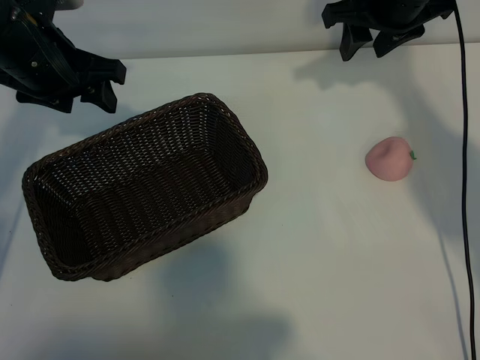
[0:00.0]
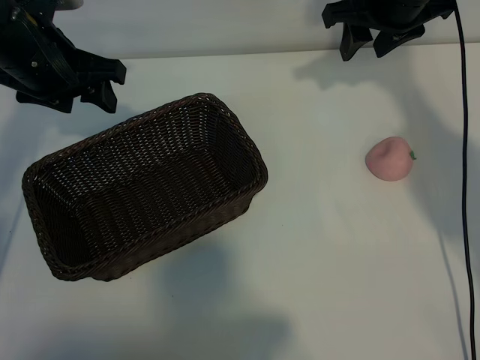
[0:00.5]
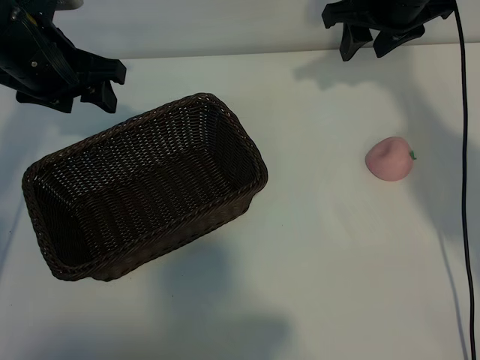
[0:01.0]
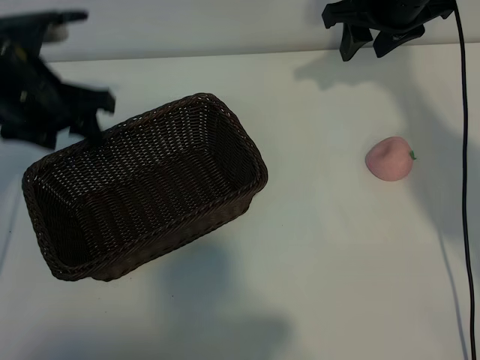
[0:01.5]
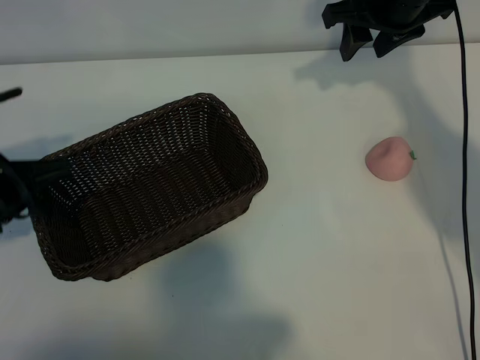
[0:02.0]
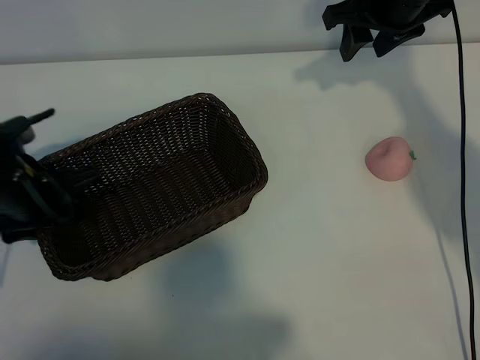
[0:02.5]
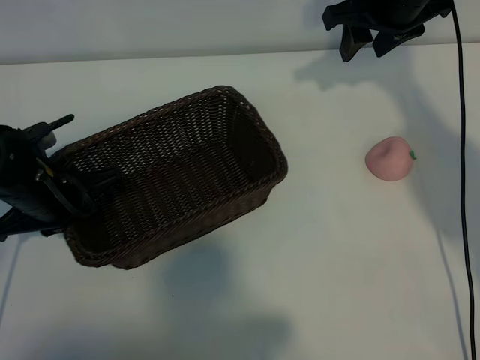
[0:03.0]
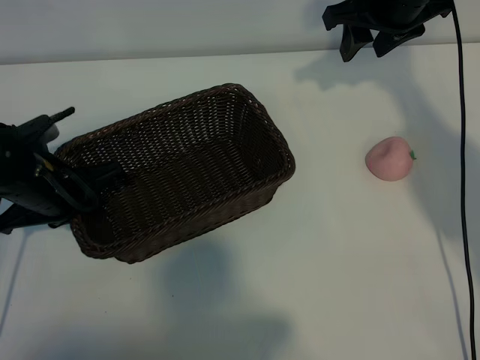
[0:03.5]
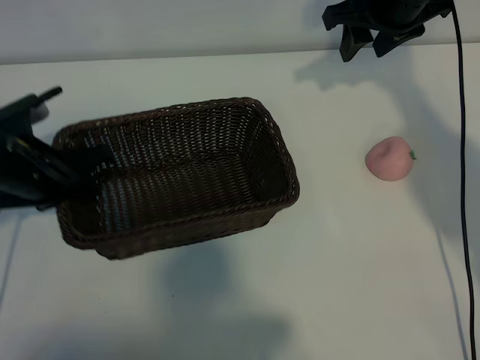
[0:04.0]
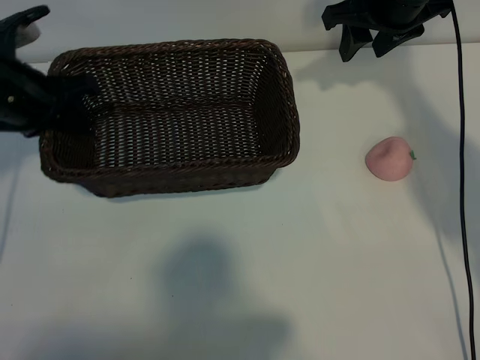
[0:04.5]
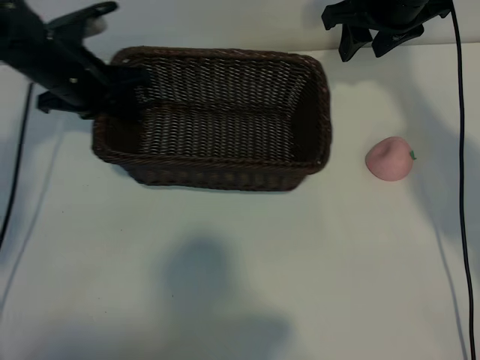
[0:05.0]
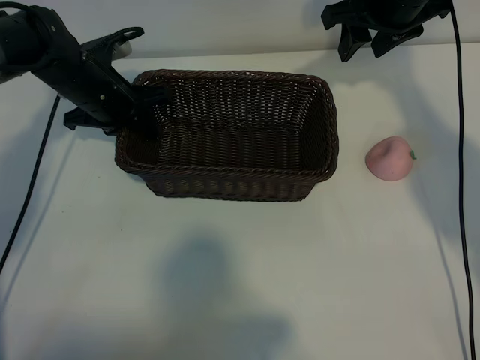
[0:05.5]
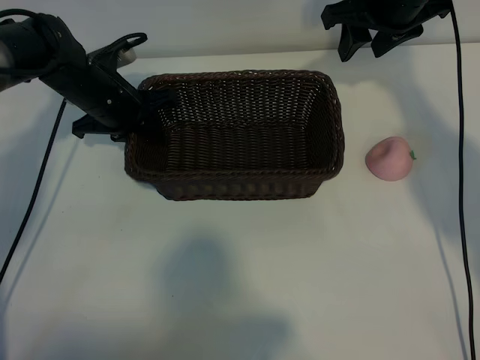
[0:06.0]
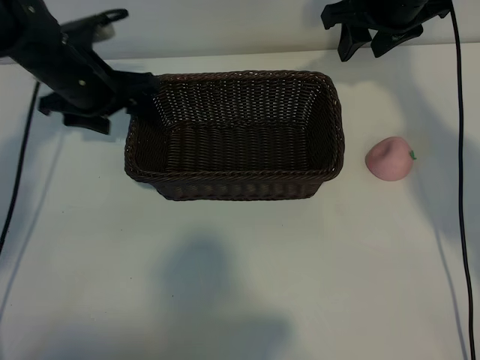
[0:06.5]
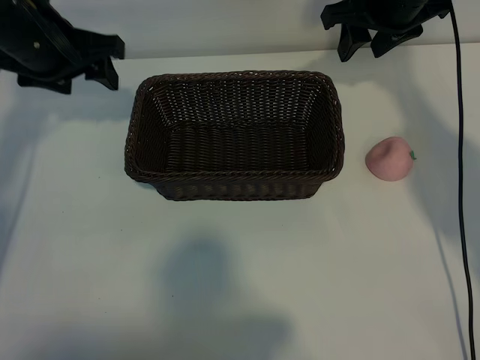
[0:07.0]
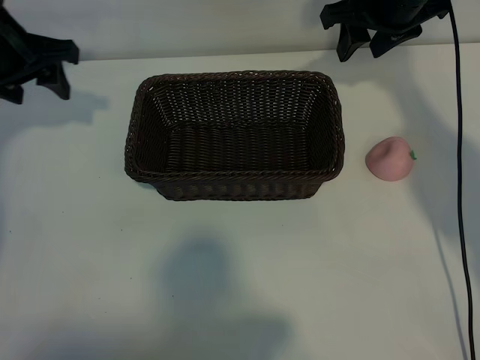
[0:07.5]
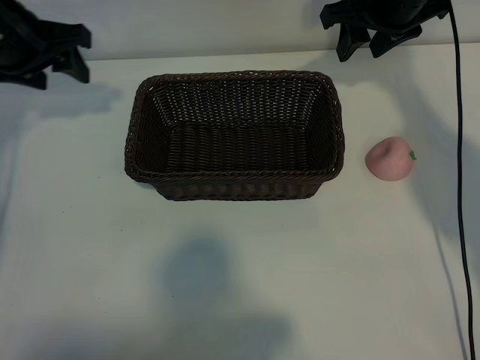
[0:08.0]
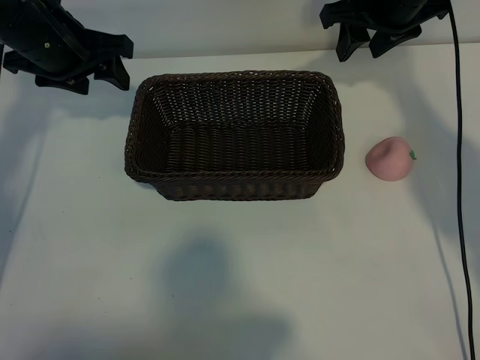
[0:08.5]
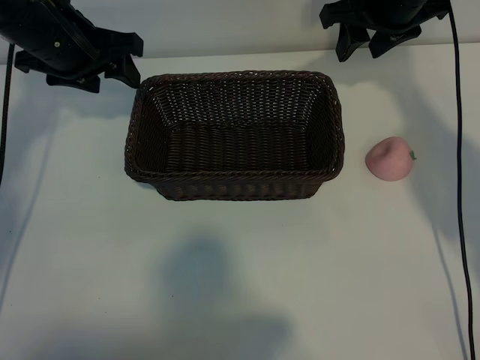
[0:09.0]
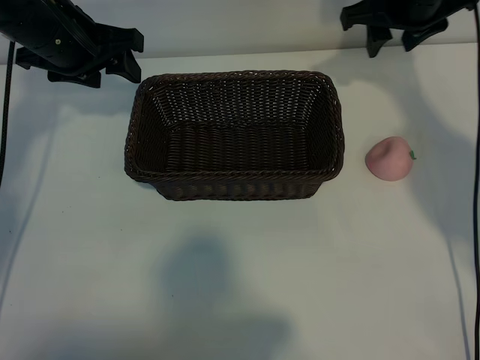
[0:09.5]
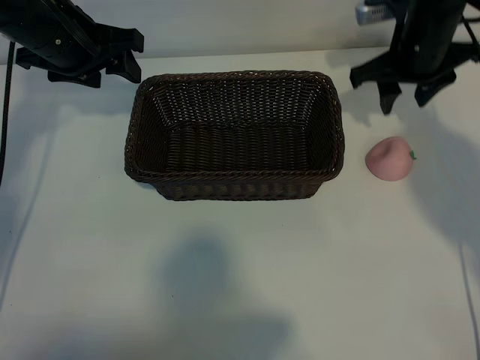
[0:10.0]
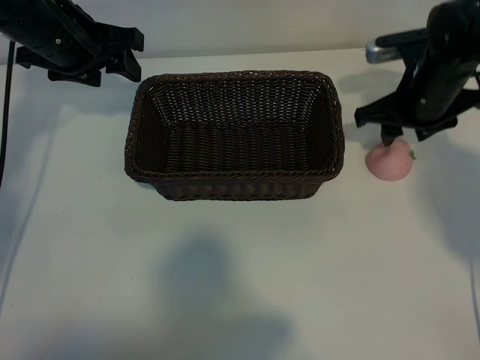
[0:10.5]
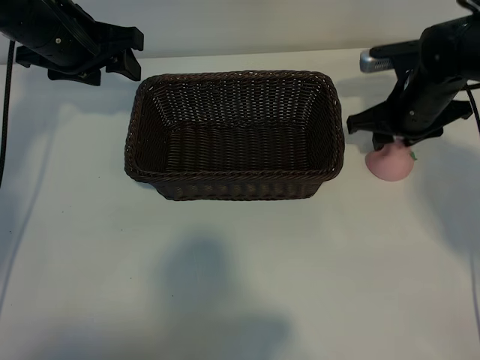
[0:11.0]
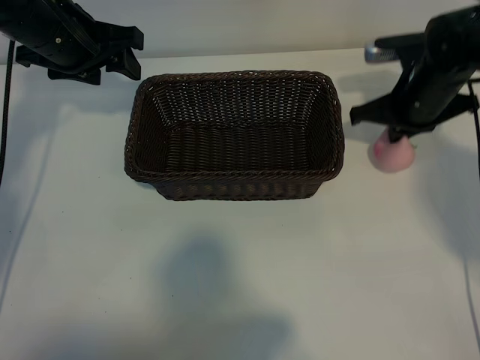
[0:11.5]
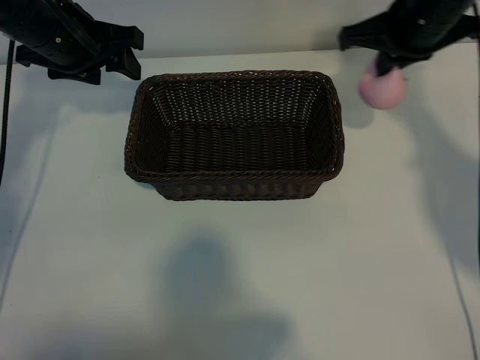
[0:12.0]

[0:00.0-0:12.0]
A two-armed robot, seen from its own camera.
Task of the whole recording: pick up the peach and put it into the basket.
Step, 0:01.5 to 0:03.0: Grasp the basket with left gripper.
Step, 0:03.5 to 0:06.0: Place the basket in the center of view with left gripper.
Step, 0:06.5 to 0:11.0: Grasp the peach with right gripper.
